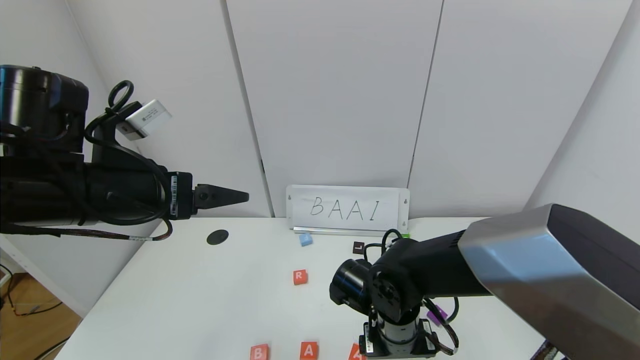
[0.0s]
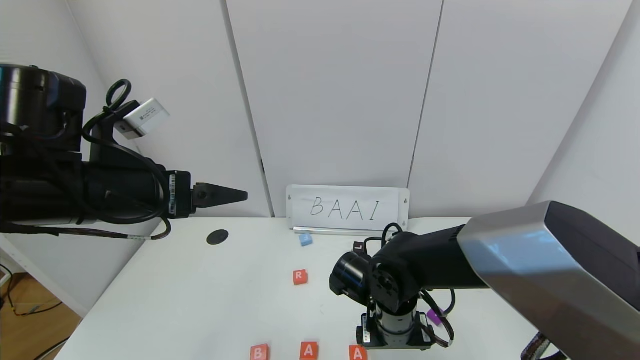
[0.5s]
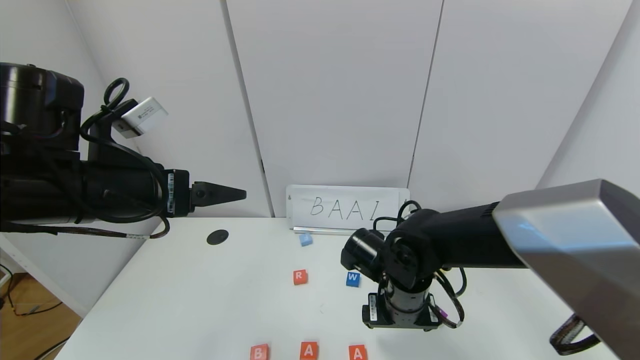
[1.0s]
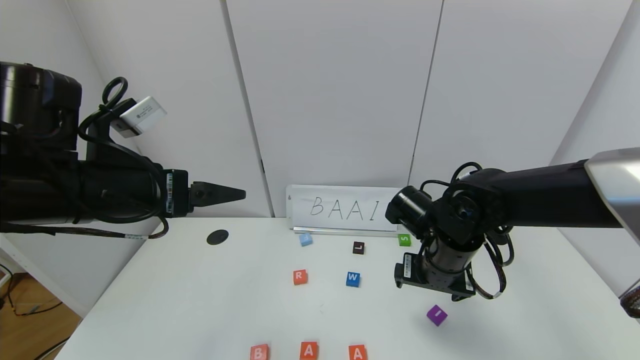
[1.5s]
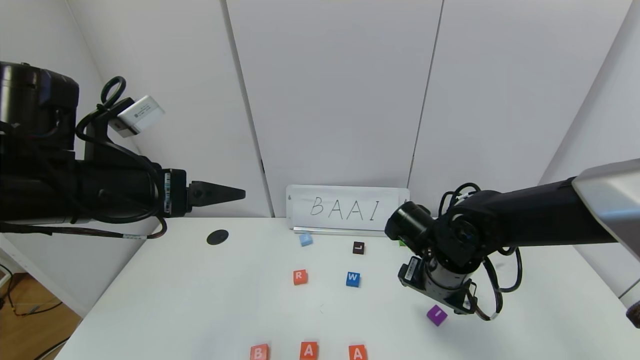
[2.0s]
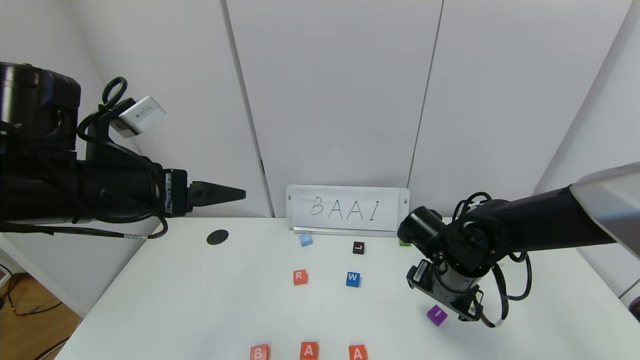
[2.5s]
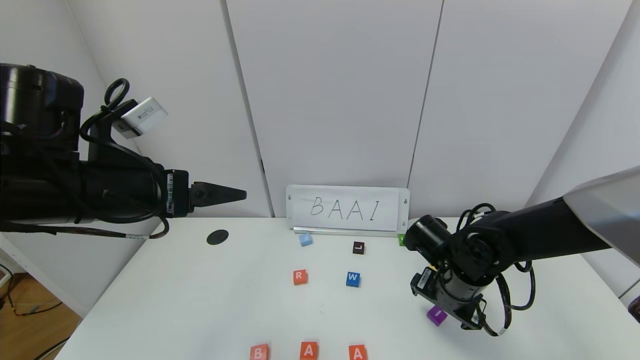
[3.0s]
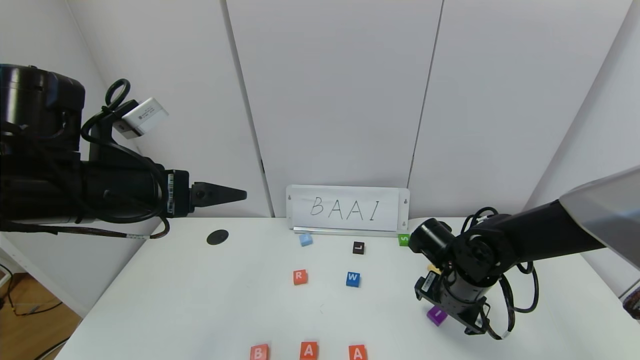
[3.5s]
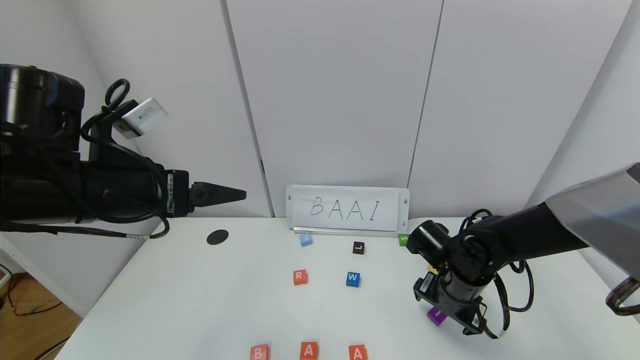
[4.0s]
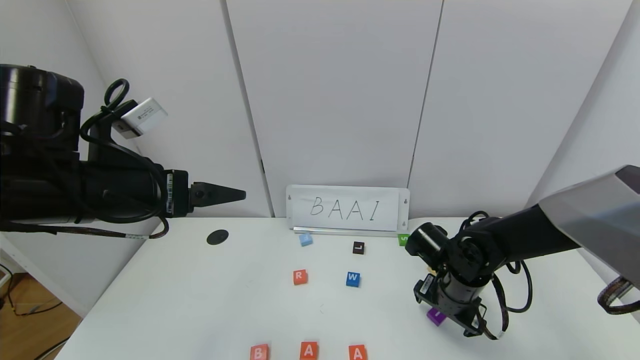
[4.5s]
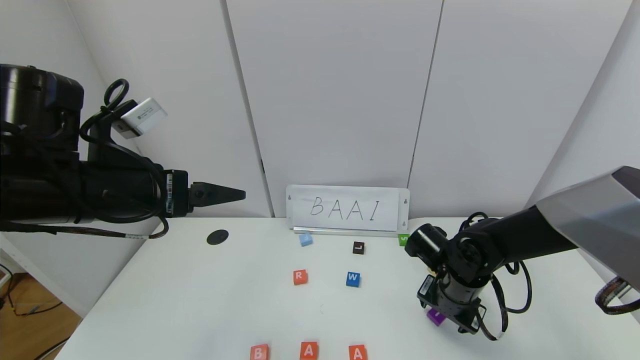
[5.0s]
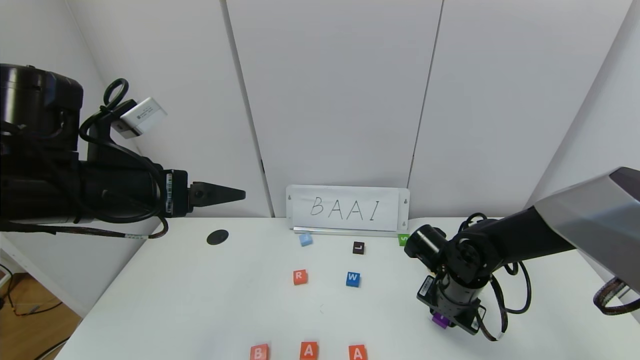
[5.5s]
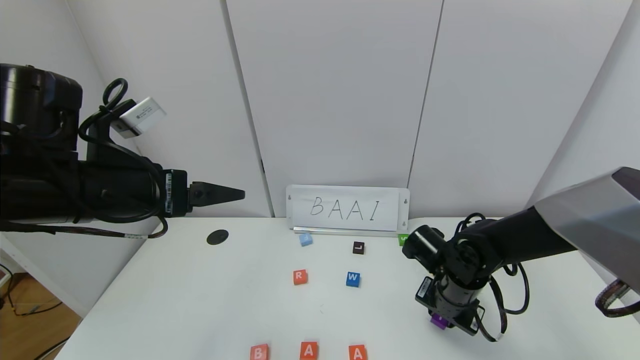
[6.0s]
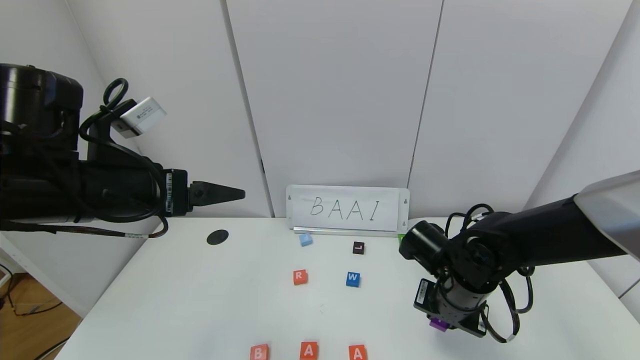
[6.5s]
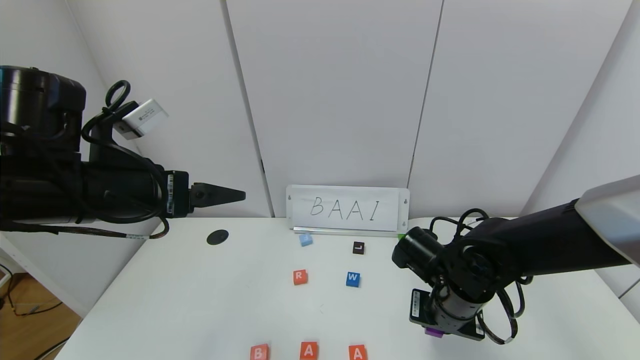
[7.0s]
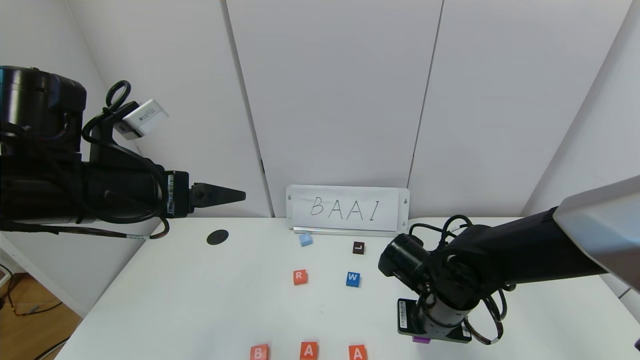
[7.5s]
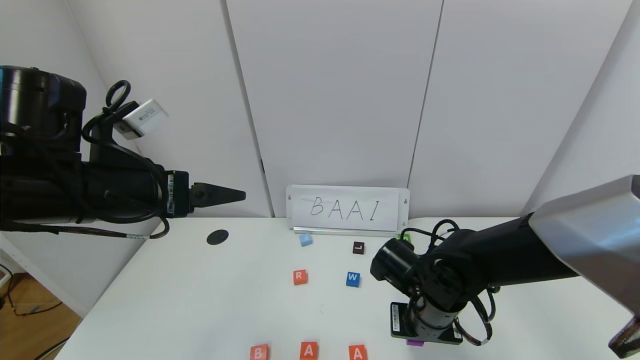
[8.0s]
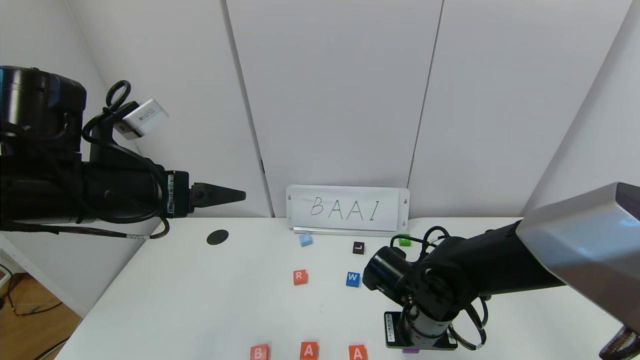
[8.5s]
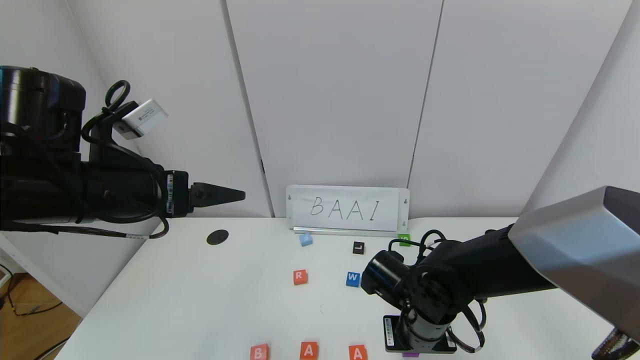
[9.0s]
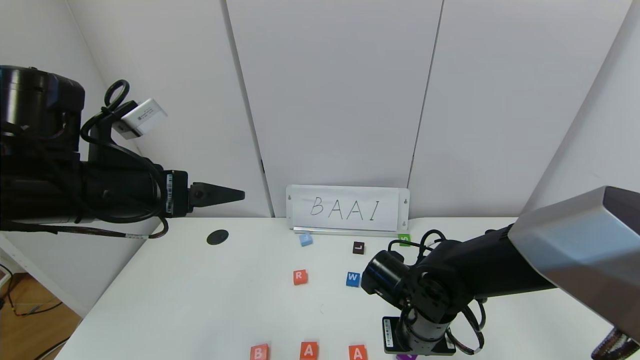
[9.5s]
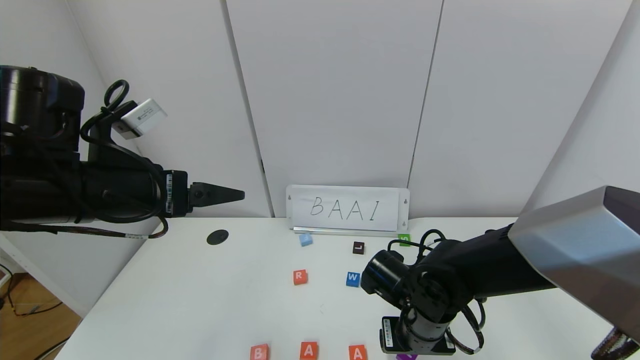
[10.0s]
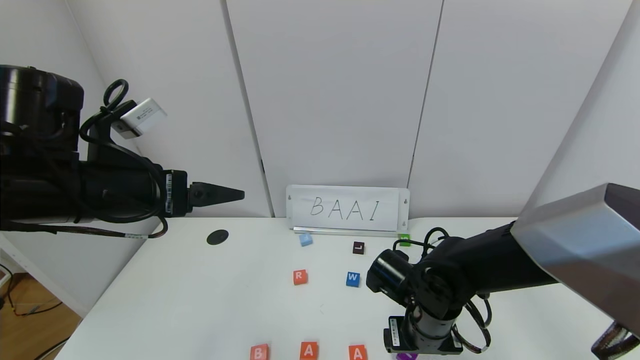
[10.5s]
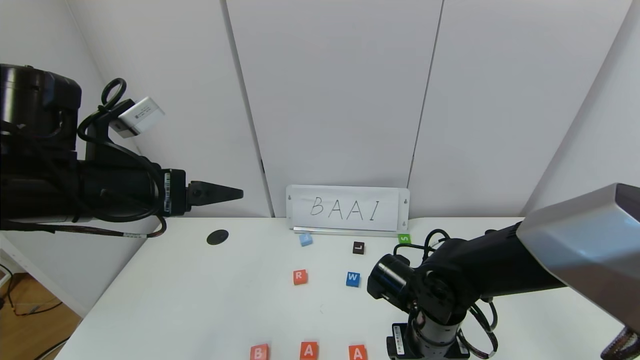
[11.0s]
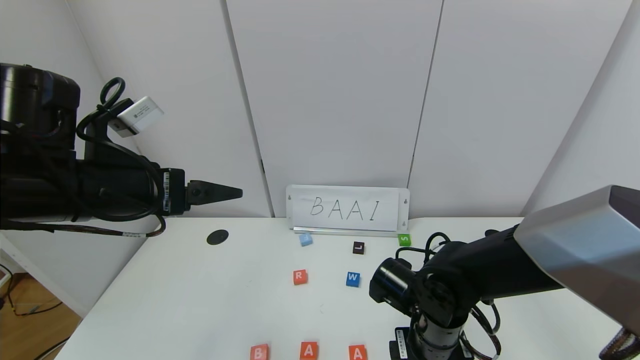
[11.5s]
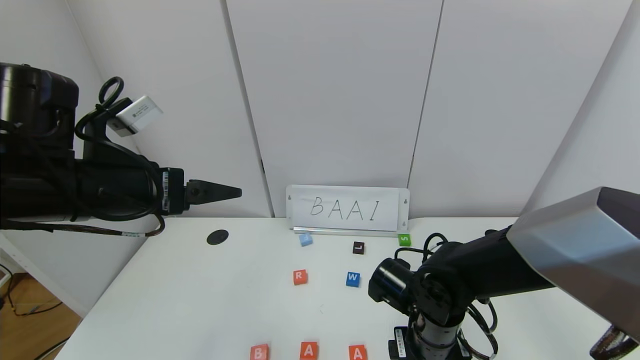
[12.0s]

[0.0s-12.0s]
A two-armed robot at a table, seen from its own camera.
Task of the whole recording: use the gripper to find blocks with the letters b, a, a, and i on the table and arrange them into BAAI, then find r and N and turn the arranged baai into brian.
Step, 0.0s to 9.5s: Place the block I in the fourth location.
0.0s to 2.0s: The right gripper is displaced to the right and upward by some 10 cm.
2.0s to 4.0s: The right gripper heads downward, covering approximately 5 cm.
4.0s to 6.0s: The right gripper closes.
6.0s to 8.0s: The right gripper moves to the left, roughly 5 cm.
8.0s to 10.0s: The right gripper opens up.
10.0s to 12.0s: The grippers make only small movements.

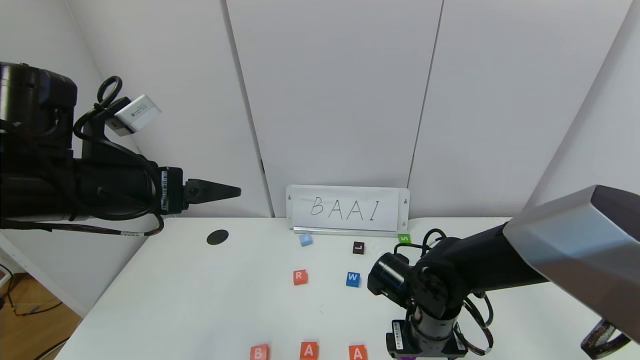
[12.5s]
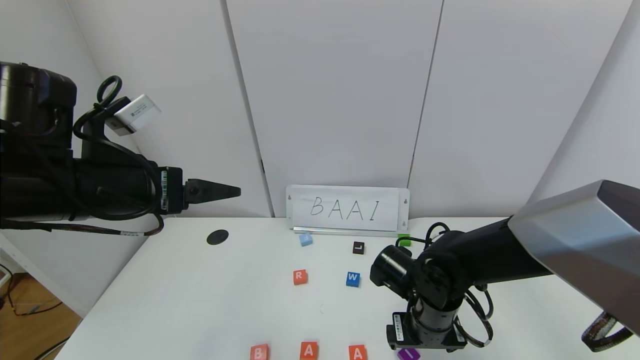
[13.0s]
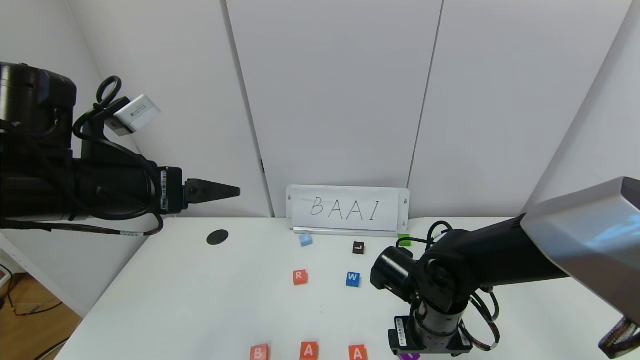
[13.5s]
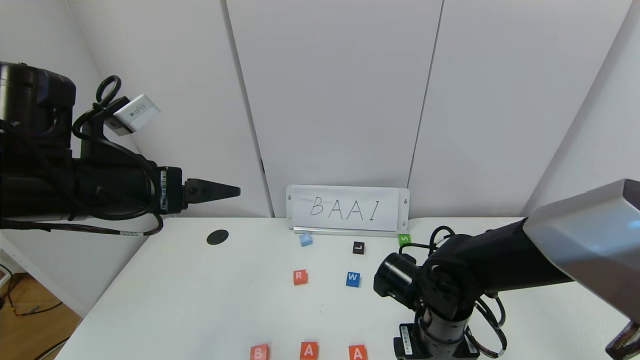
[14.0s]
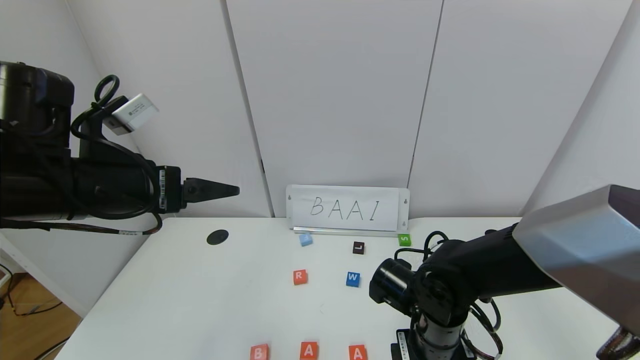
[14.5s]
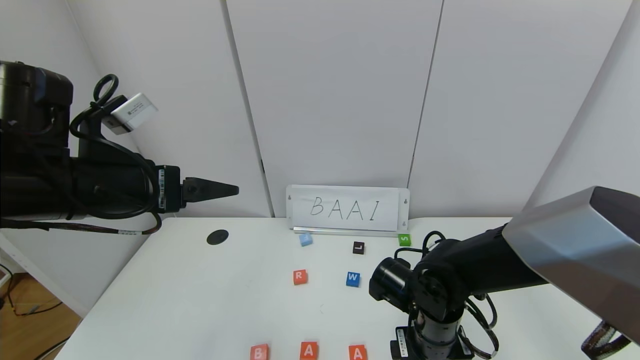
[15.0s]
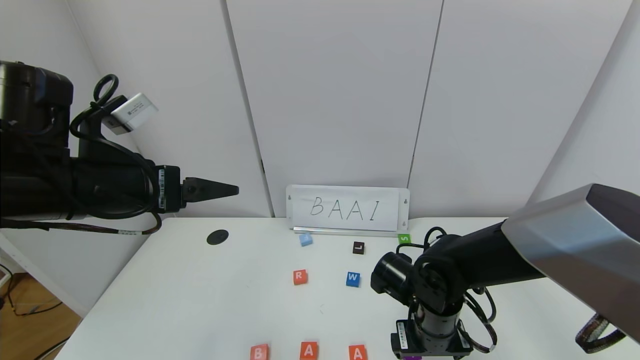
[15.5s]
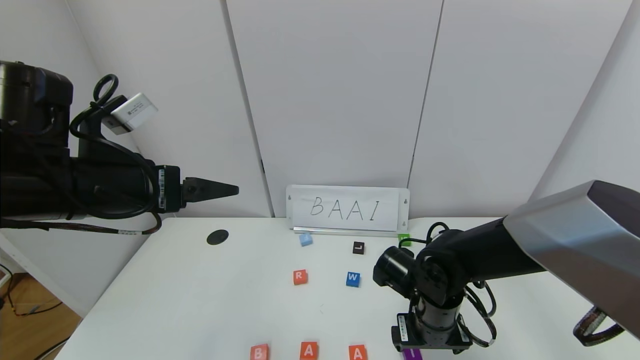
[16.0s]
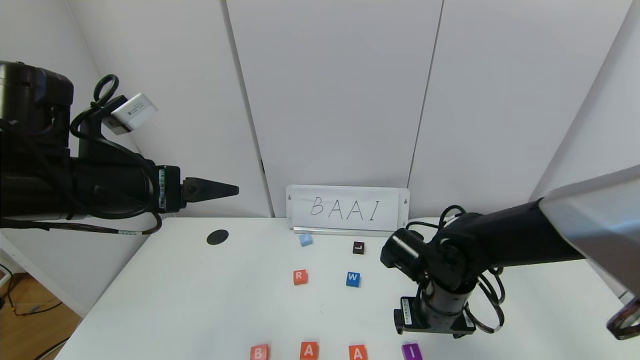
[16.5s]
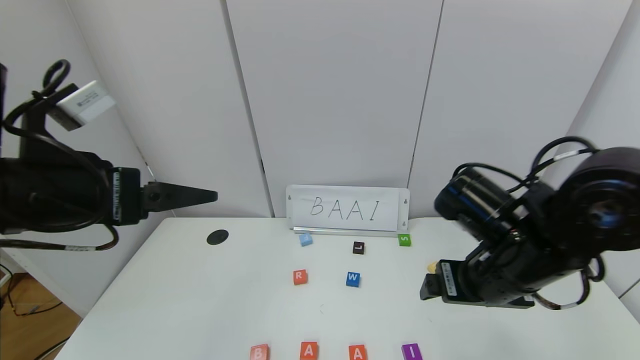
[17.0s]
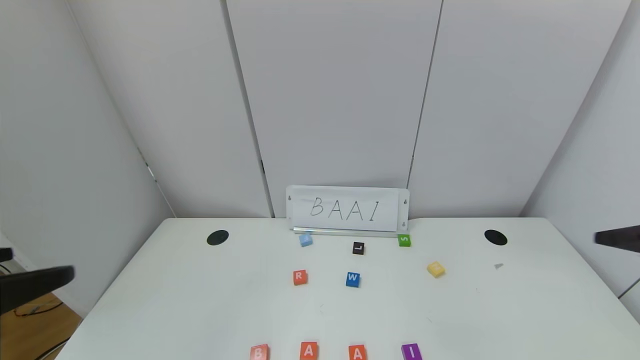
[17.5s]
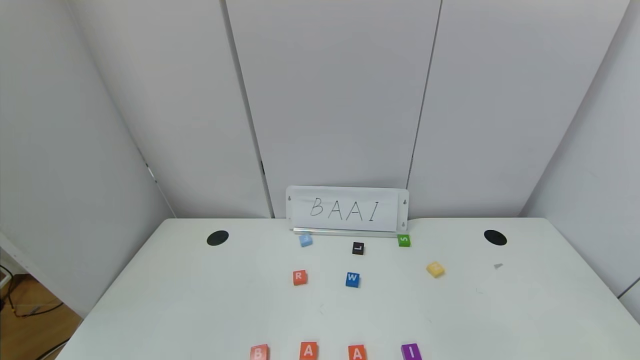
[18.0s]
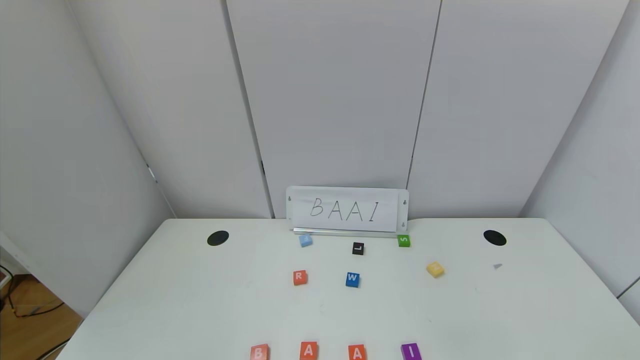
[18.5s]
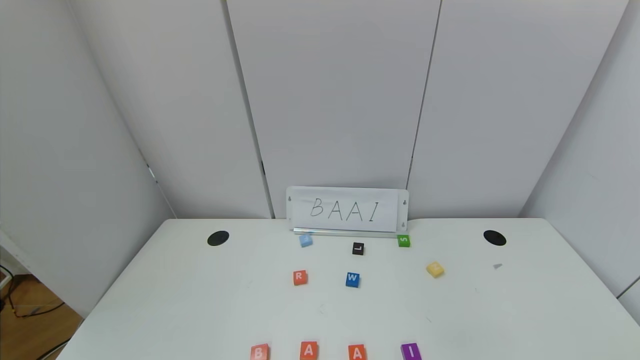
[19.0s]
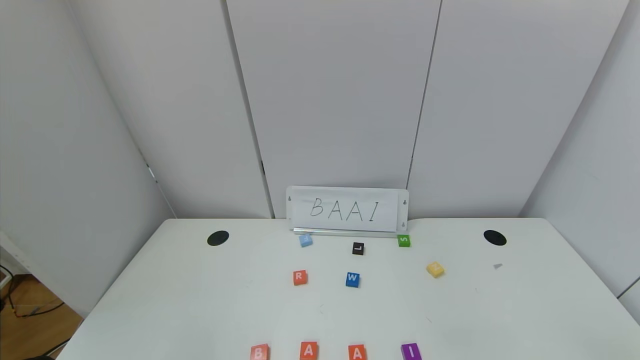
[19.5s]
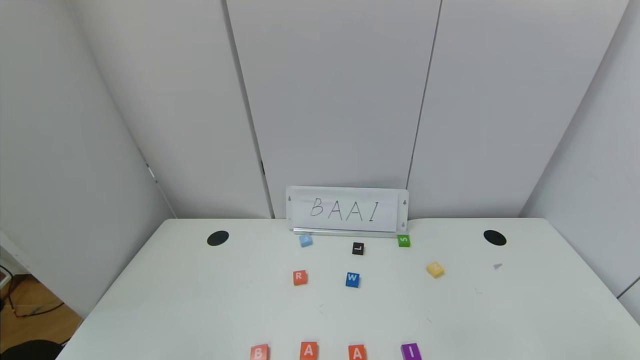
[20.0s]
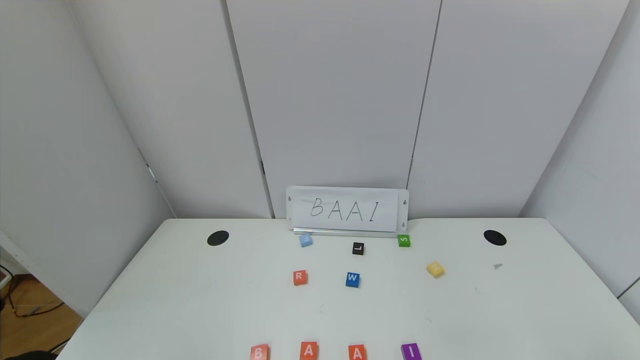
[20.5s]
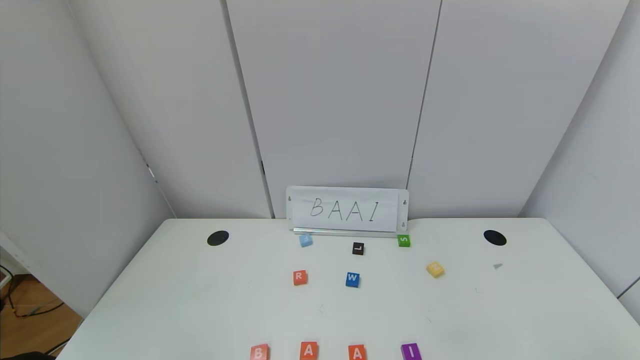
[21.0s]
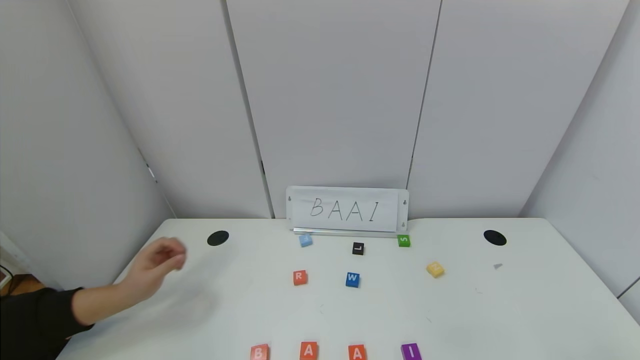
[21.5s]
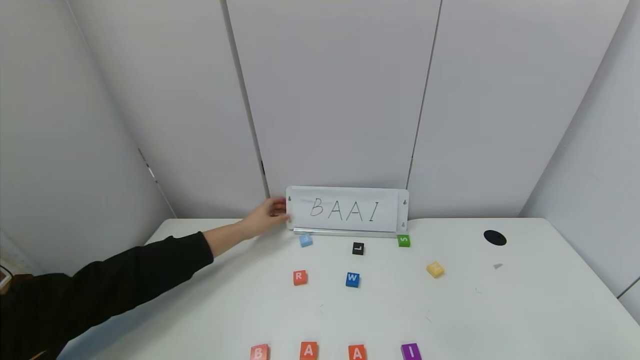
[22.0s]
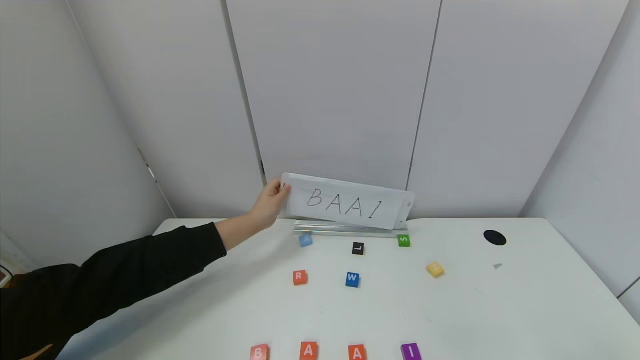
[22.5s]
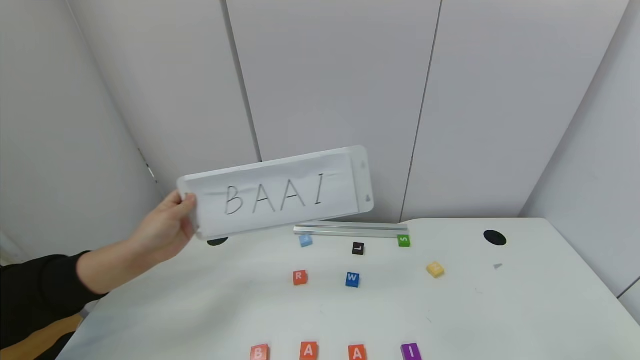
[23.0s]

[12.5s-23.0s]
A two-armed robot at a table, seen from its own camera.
Task of the whole recording: use the gripper to find blocks with the letters b, a, a, and i on the table and arrange them into BAAI, then find r and N and turn the arranged baai into brian.
12.5s to 16.5s: There are only small adjustments of the grippers.
16.5s to 19.0s: The left gripper travels backward by about 40 cm; the right gripper travels backward and to the right by some 50 cm.
21.0s to 23.0s: The two grippers keep their place.
